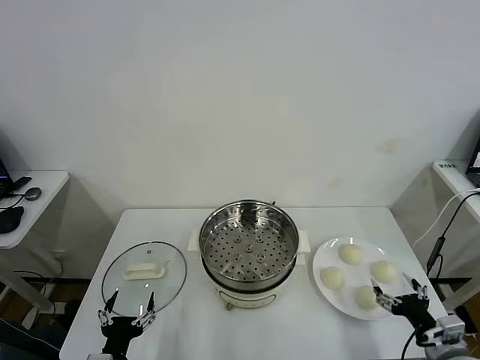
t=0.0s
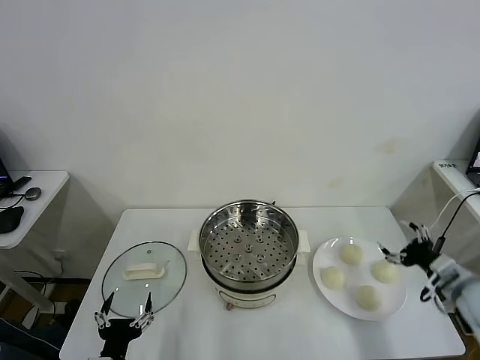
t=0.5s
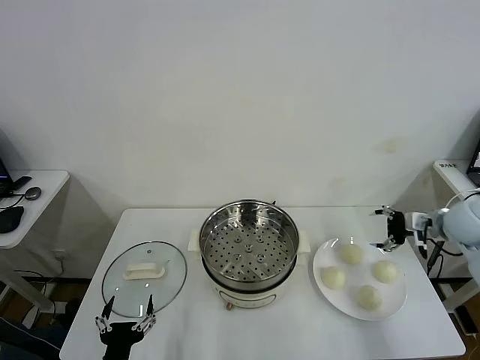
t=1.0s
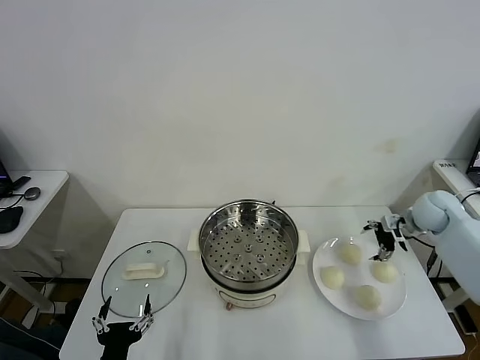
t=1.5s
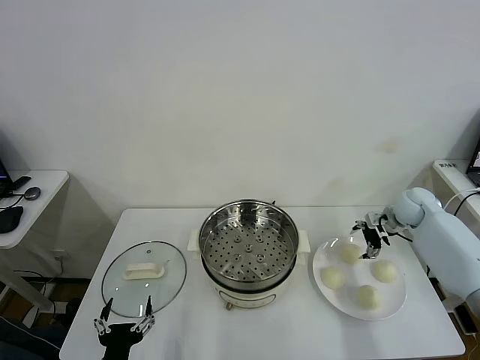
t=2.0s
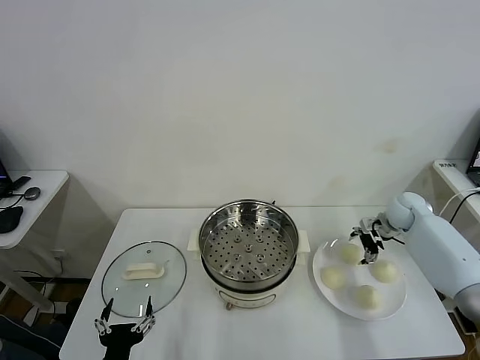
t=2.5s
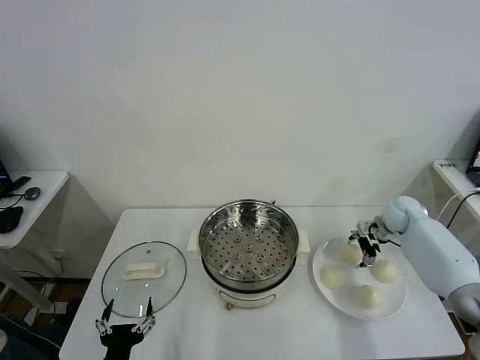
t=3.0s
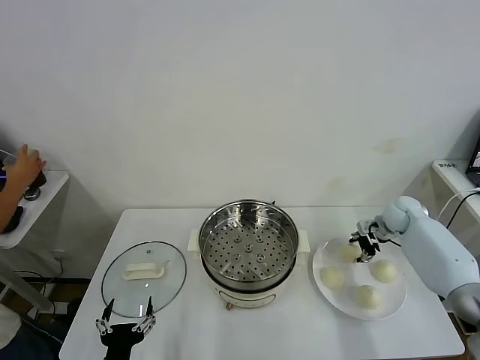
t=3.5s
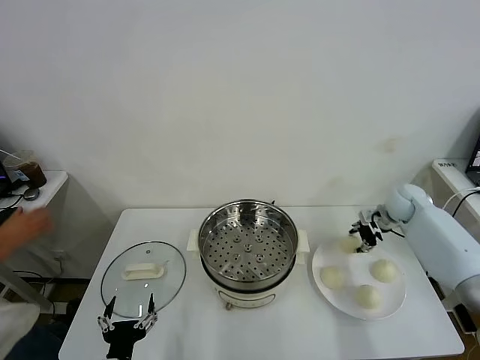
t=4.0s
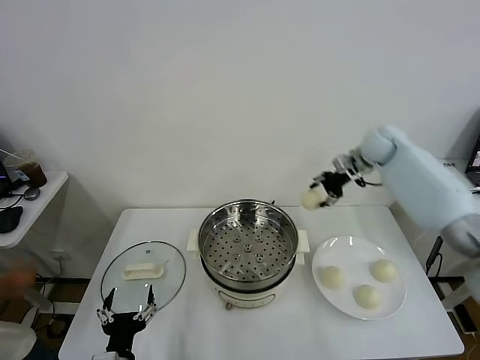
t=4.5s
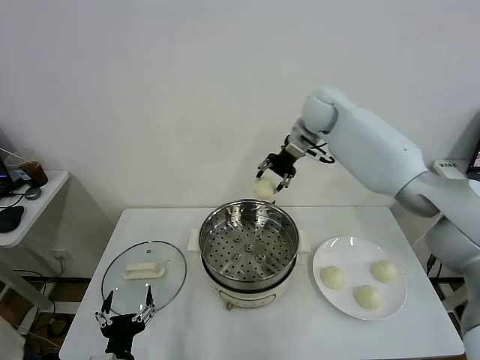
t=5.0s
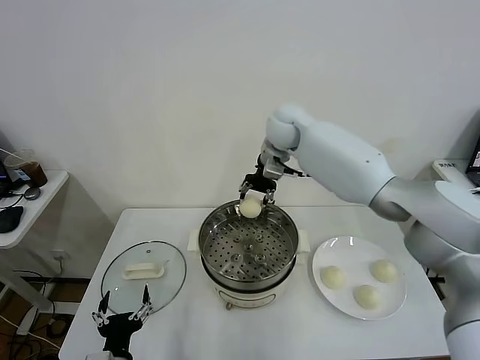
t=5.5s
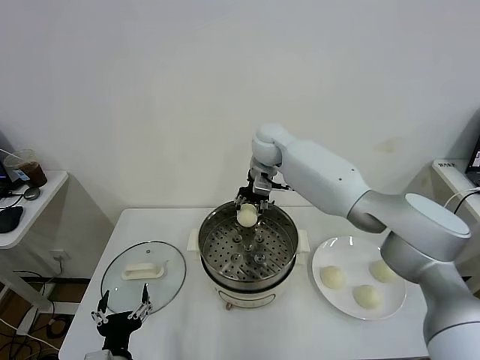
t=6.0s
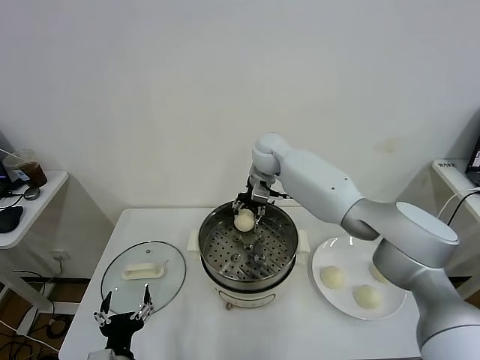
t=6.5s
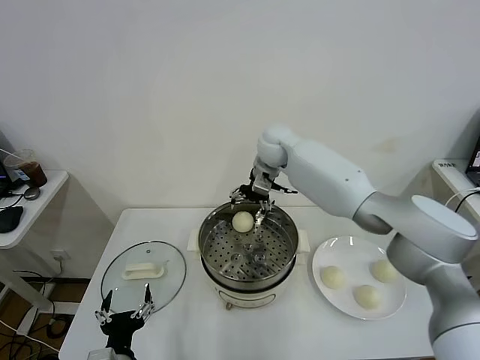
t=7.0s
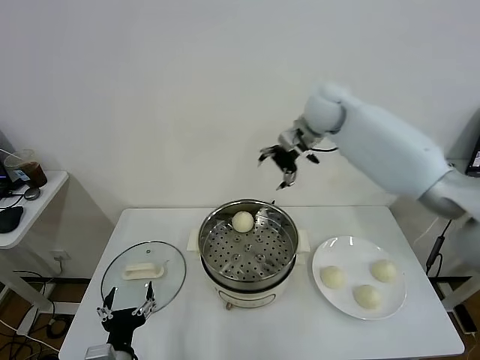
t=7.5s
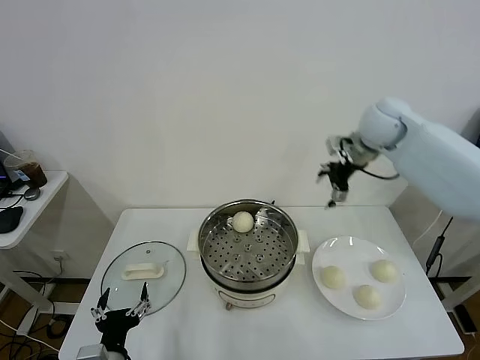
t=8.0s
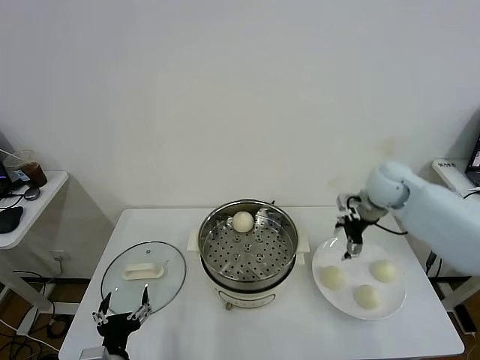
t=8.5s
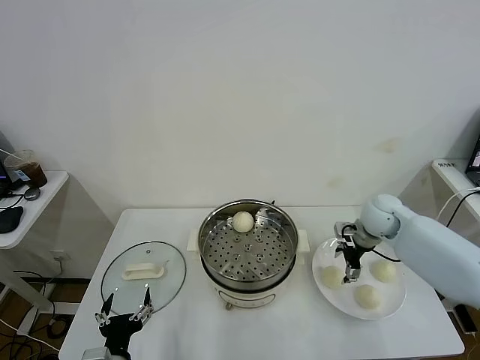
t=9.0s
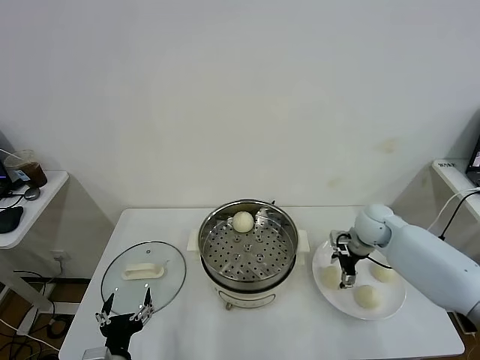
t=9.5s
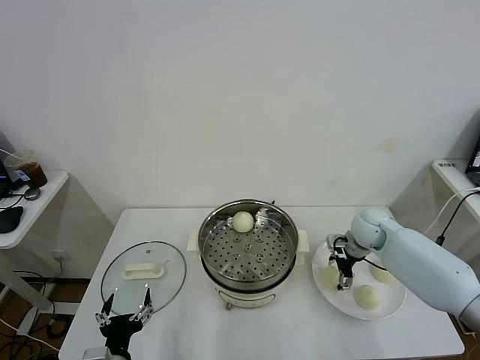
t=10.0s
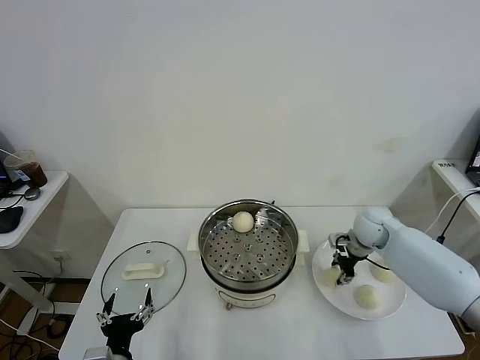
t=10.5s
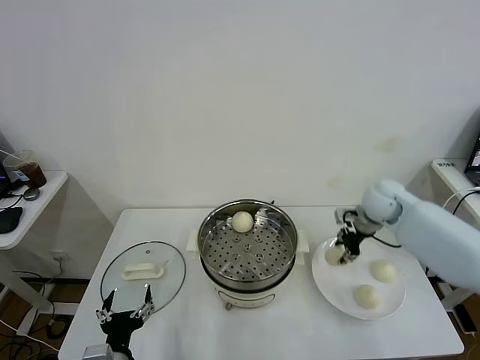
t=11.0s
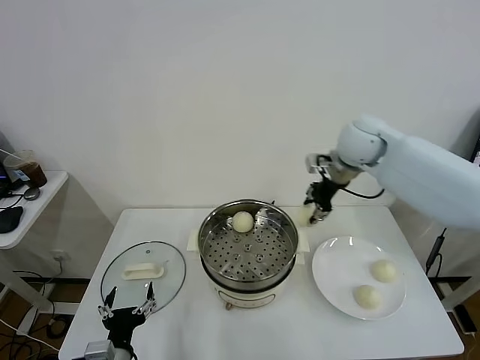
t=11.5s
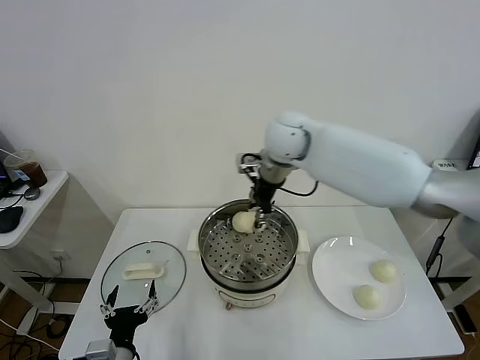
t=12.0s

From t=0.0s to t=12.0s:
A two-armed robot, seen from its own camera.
Task of the whole recording: take steamed baozi put them in steamer.
Step, from t=0.0s to t=3.5s: Grasp the baozi in the plate with right gripper.
Step, from t=4.0s to t=6.5s: Place the baozi on the steamer with right gripper.
Step, from t=7.0s to t=10.5s: Grasp the baozi in the plate with right gripper.
From t=2.0s to t=4.0s: The right gripper ends up roughly 5 cm from where it was, and closes.
From t=4.0s to t=6.0s: The right gripper is displaced to the left by about 35 cm.
From t=6.0s to t=8.0s: The right gripper shifts approximately 25 cm to the right, and opens up.
From t=8.0s to t=10.0s: The right gripper heads downward, covering some 20 cm.
From t=10.0s to t=12.0s: The right gripper goes about 35 cm to the left and upward, and closes.

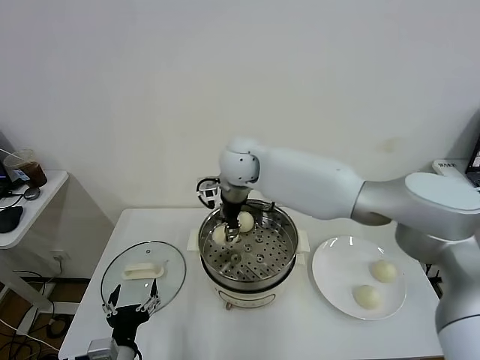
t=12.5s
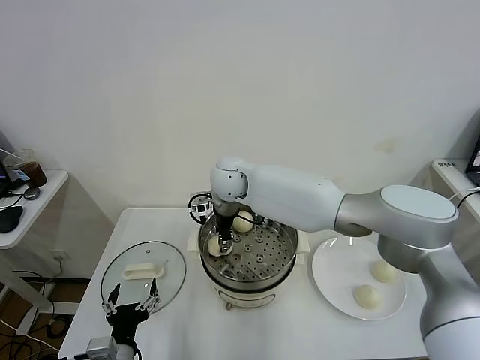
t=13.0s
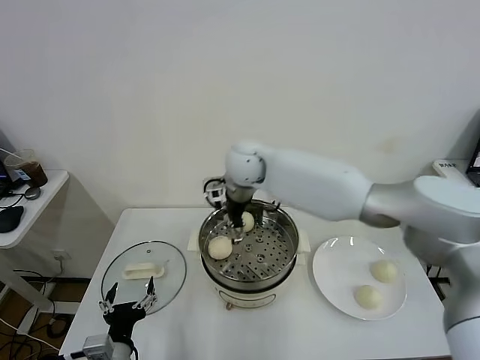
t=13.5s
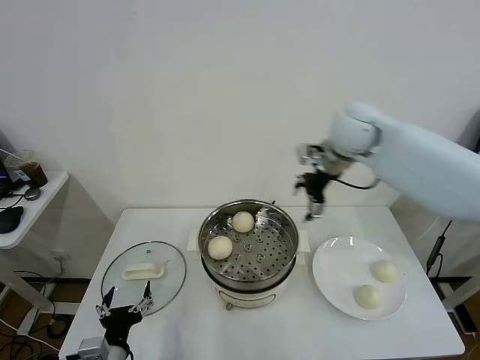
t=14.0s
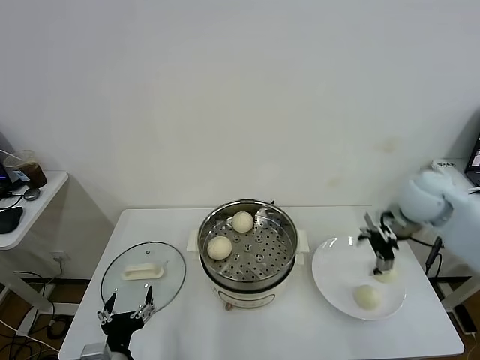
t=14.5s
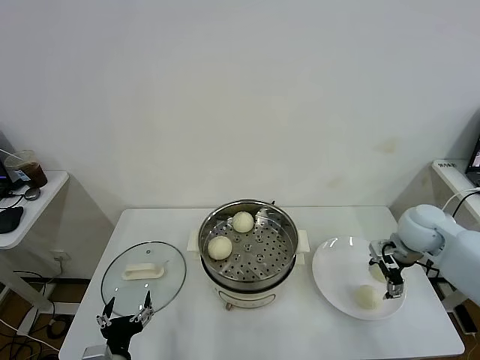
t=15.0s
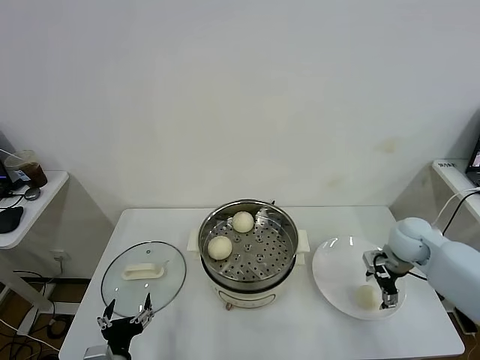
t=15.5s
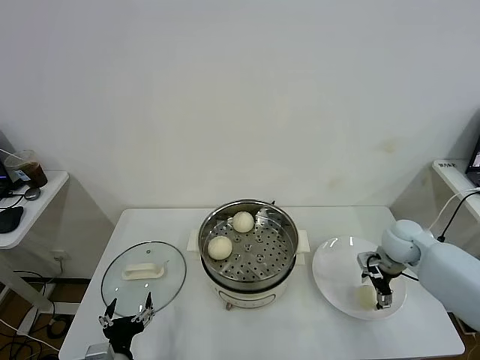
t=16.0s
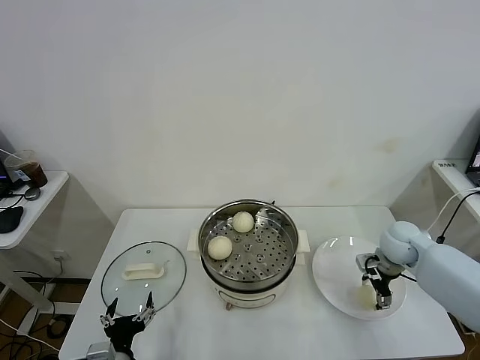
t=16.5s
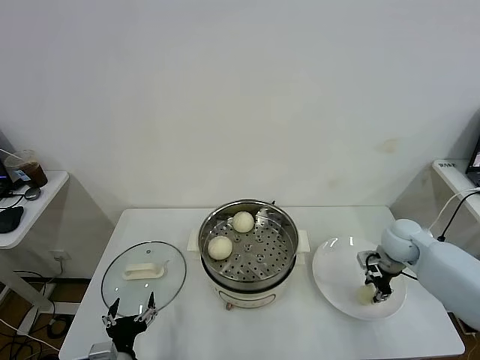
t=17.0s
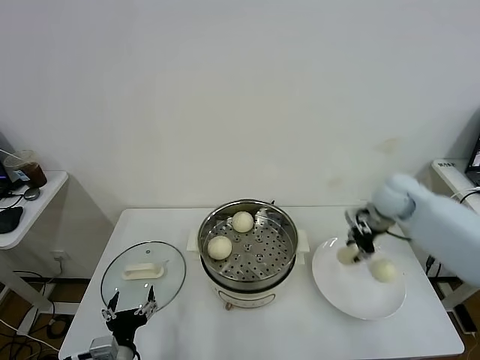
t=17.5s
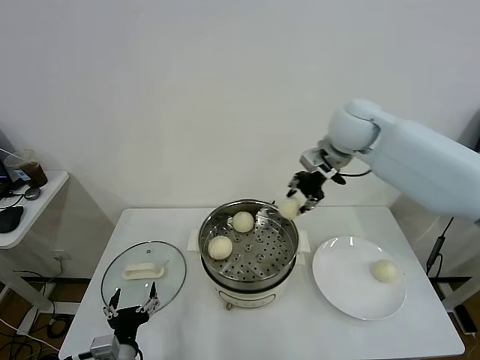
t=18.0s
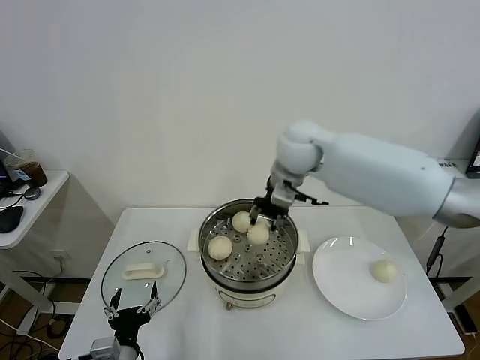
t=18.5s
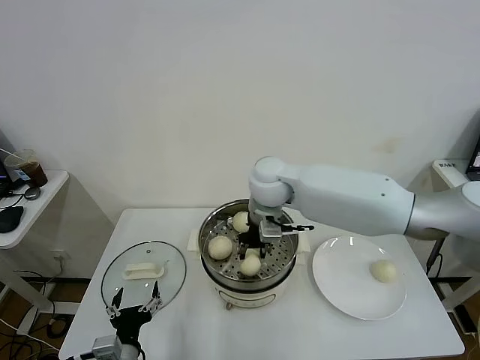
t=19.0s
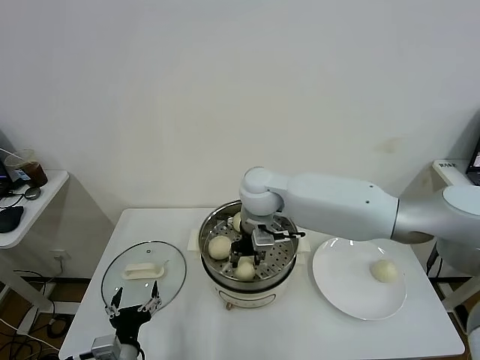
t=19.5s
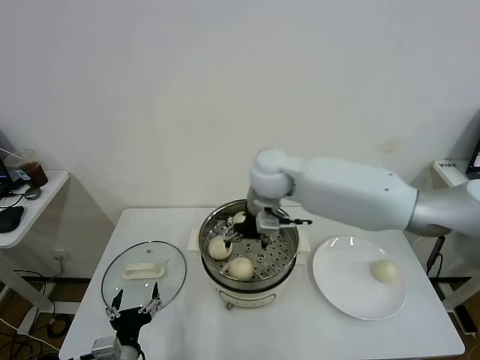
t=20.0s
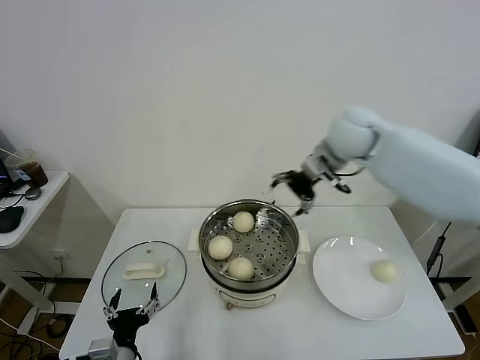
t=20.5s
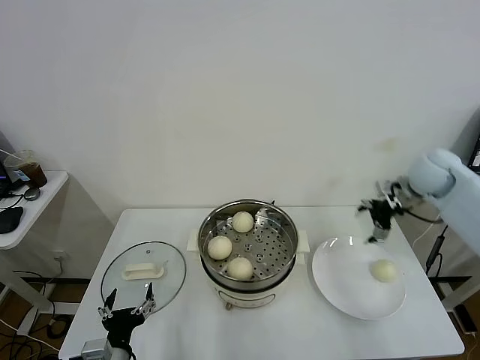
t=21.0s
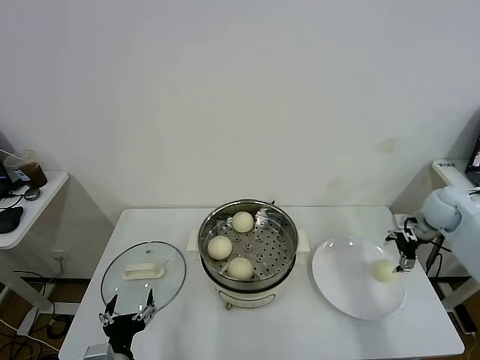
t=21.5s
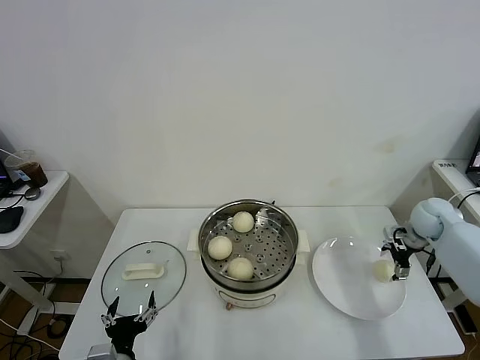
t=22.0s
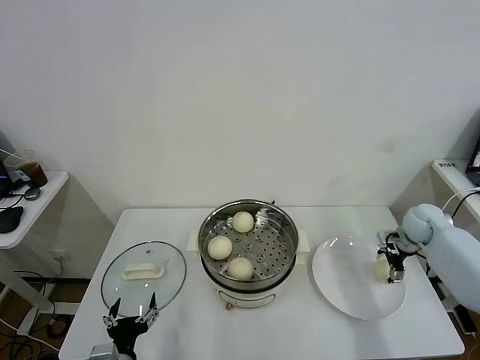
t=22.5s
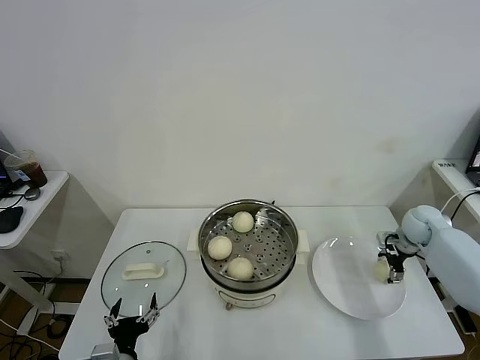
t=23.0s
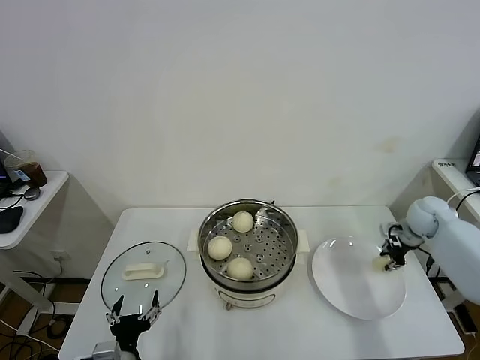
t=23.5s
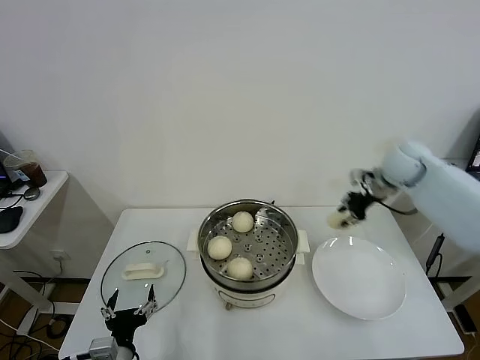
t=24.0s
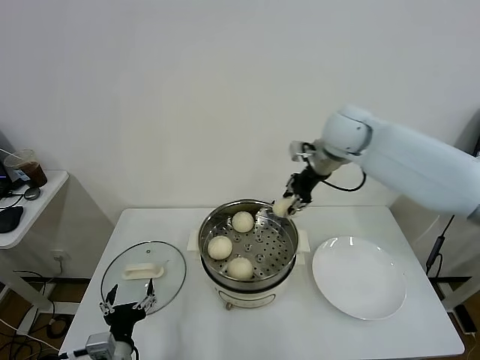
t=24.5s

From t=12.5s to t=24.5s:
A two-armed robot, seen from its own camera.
Task of the whole recording: take steamed baozi put them in steamer.
Step, from t=13.5s to t=17.0s: Grasp the baozi in the plate with right gripper.
Step, from t=17.5s to t=19.5s: Place the baozi on the steamer with right gripper.
Step, from t=20.0s to t=23.0s: Grasp the baozi in the plate with right gripper.
From t=12.5s to t=14.5s: The right gripper is displaced to the right by some 40 cm, and opens up.
From t=14.5s to t=16.5s: The right gripper is displaced downward by roughly 15 cm.
From t=16.5s to t=18.5s: The right gripper moves to the left and upward, some 35 cm, and closes its fingers.
From t=18.5s to t=20.5s: The right gripper is displaced to the right by roughly 15 cm, and opens its fingers.
From t=20.5s to t=22.5s: The right gripper heads downward and to the right, covering about 35 cm.
From t=22.5s to t=24.5s: The right gripper heads to the left and upward, covering about 35 cm, and closes.

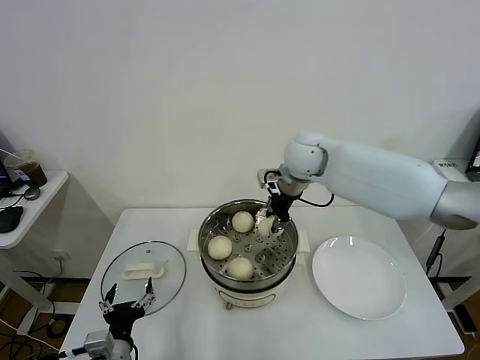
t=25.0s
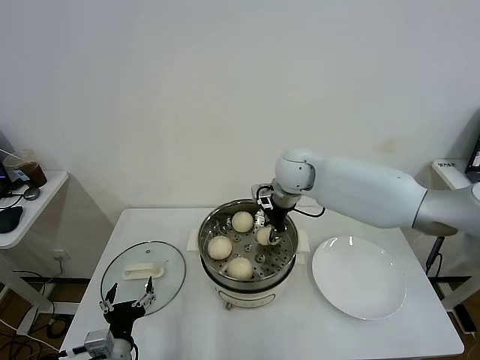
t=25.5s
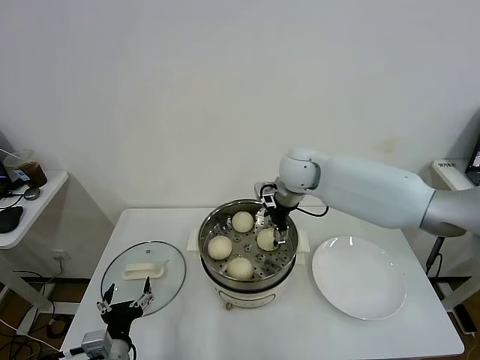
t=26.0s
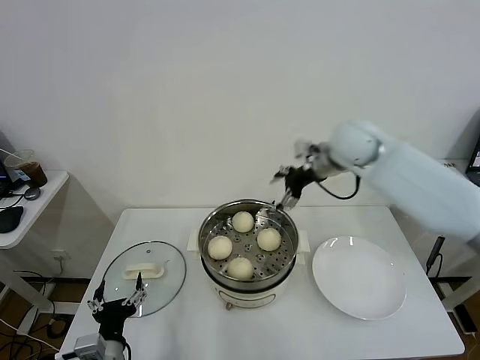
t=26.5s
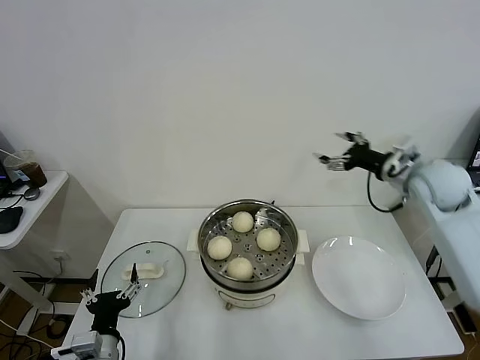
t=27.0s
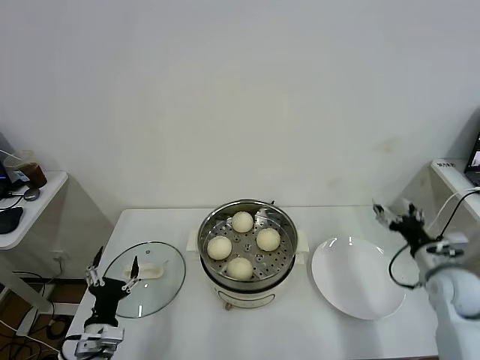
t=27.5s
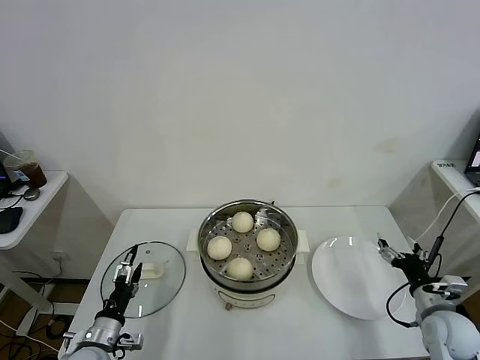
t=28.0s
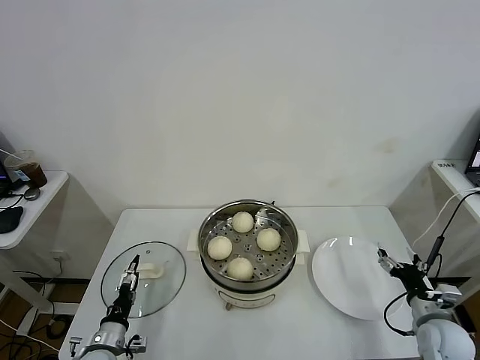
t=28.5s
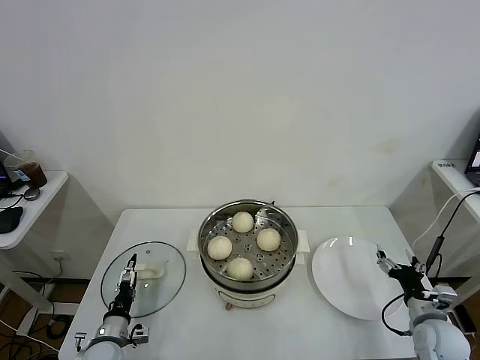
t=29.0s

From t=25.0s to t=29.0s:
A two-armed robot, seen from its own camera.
Task of the whole recording: take steamed baozi put them in steamer.
From t=25.0s to t=27.0s: The right gripper moves to the right, some 25 cm, and opens its fingers.
From t=27.0s to t=29.0s: The right gripper is displaced downward and backward by about 35 cm, while the left gripper moves downward, forward and to the left, about 15 cm.
